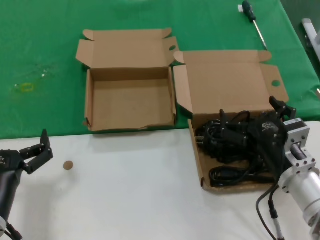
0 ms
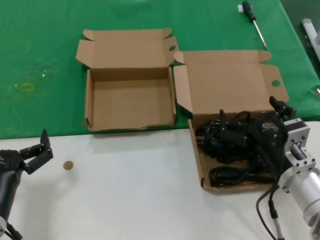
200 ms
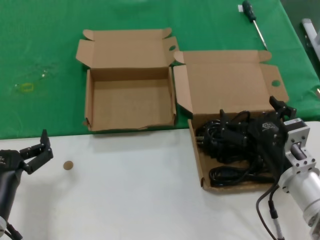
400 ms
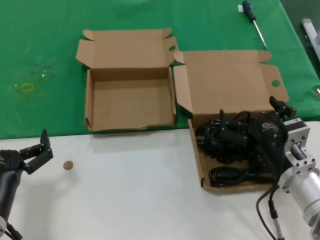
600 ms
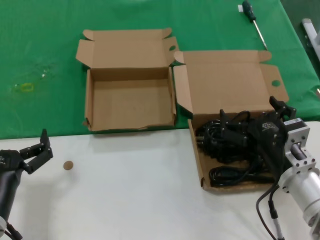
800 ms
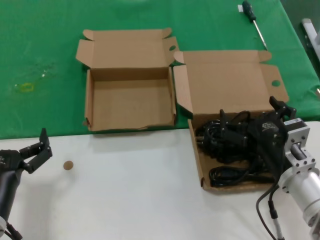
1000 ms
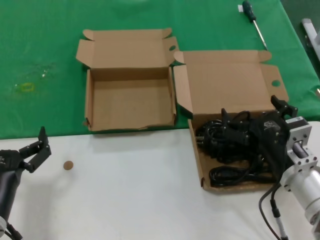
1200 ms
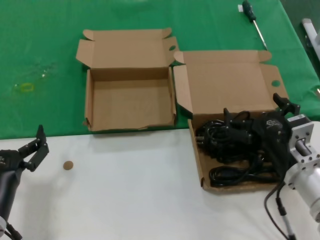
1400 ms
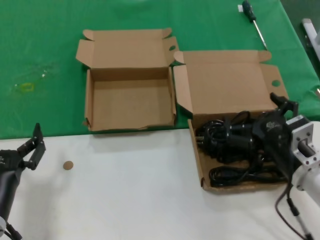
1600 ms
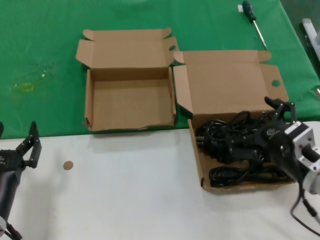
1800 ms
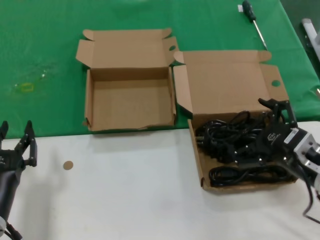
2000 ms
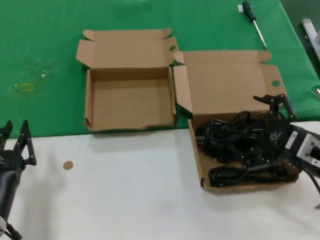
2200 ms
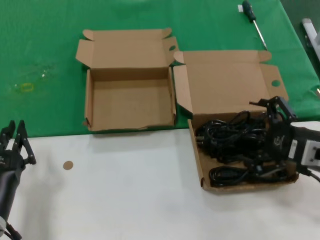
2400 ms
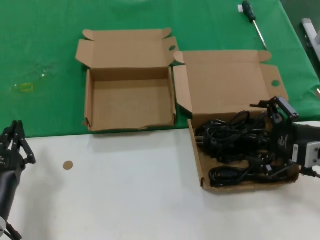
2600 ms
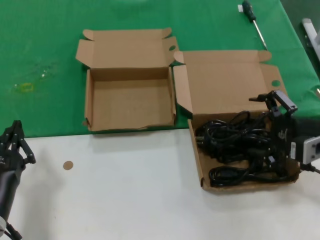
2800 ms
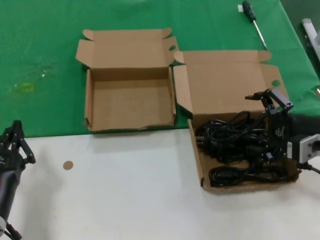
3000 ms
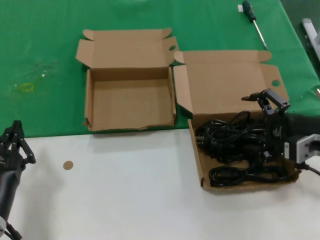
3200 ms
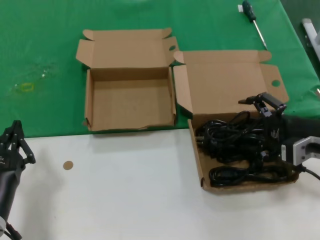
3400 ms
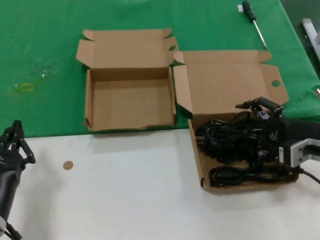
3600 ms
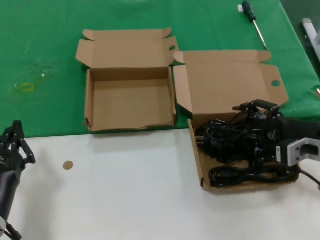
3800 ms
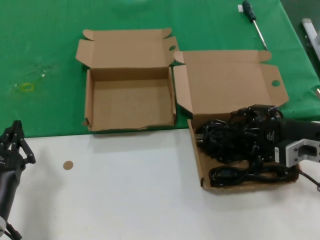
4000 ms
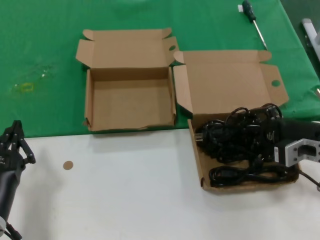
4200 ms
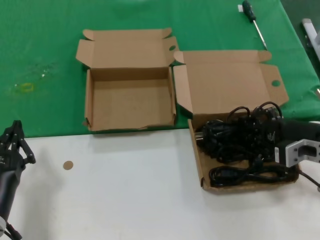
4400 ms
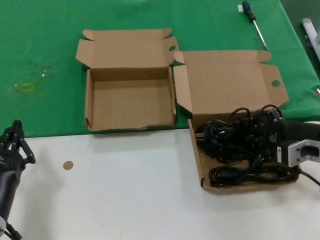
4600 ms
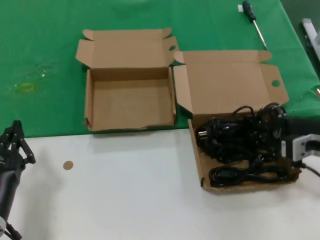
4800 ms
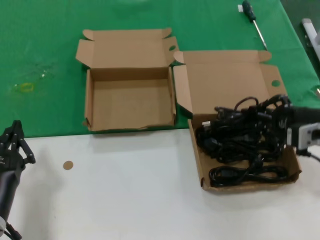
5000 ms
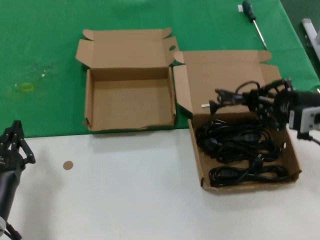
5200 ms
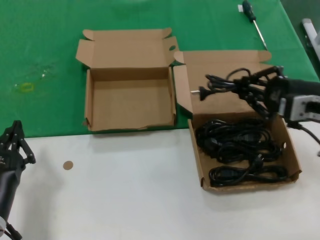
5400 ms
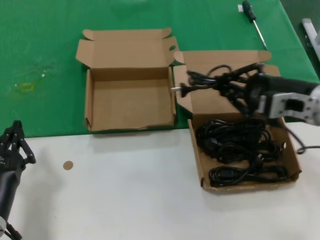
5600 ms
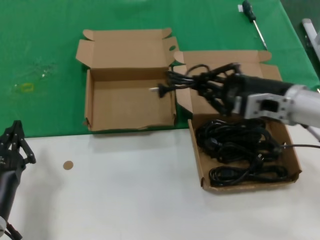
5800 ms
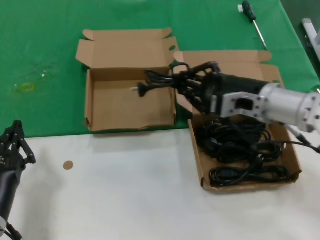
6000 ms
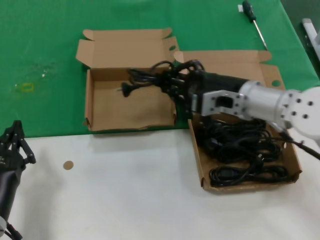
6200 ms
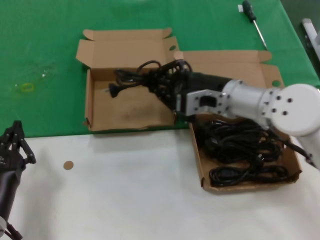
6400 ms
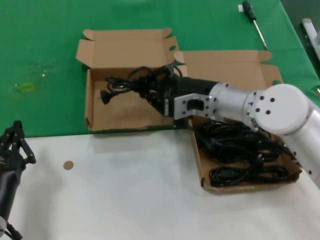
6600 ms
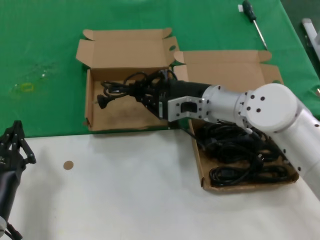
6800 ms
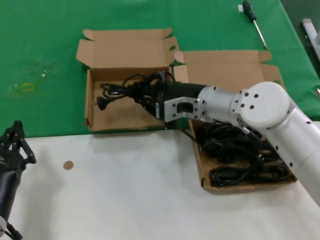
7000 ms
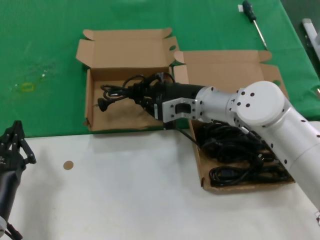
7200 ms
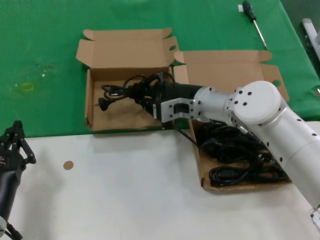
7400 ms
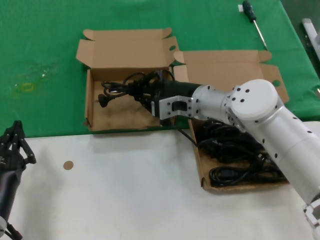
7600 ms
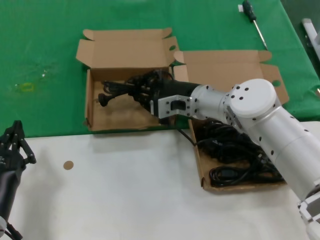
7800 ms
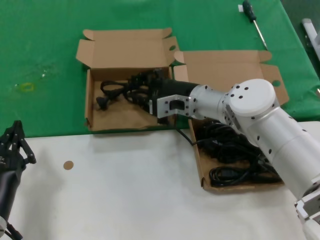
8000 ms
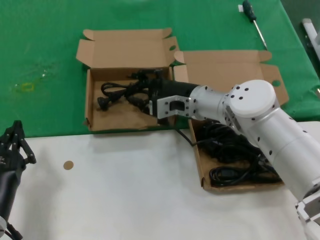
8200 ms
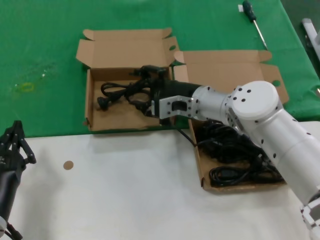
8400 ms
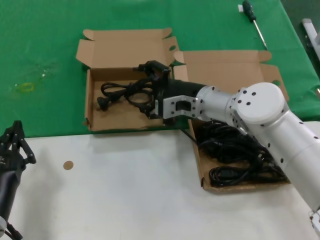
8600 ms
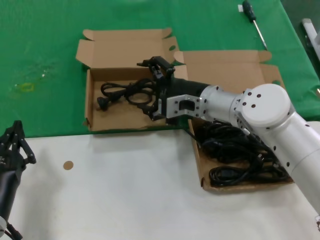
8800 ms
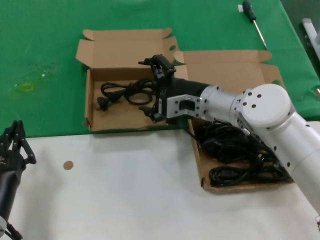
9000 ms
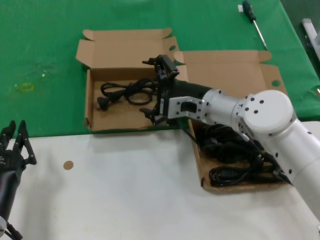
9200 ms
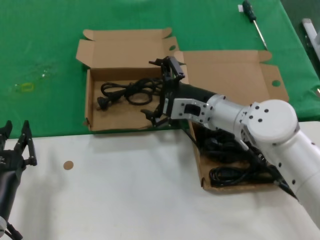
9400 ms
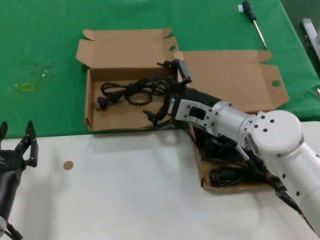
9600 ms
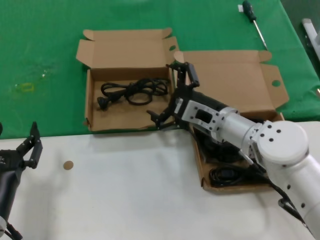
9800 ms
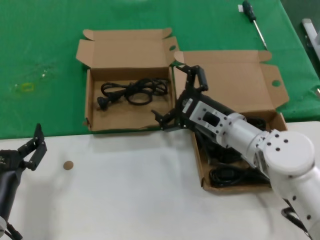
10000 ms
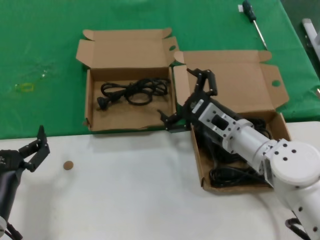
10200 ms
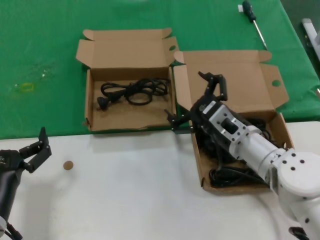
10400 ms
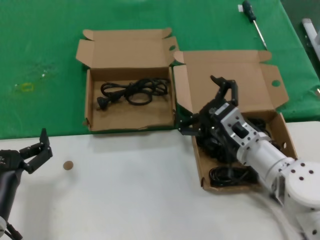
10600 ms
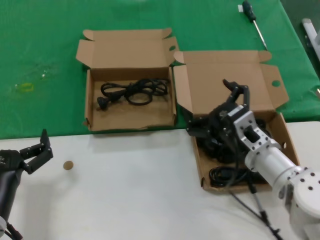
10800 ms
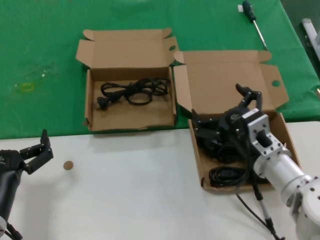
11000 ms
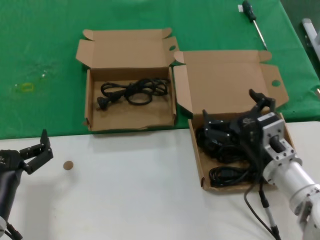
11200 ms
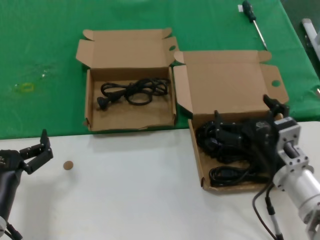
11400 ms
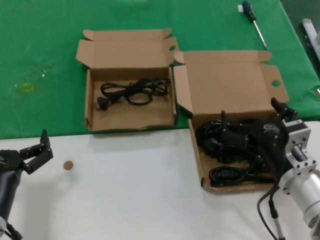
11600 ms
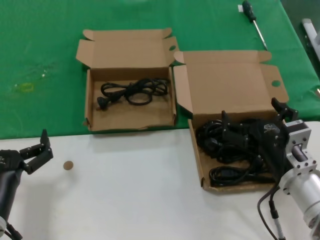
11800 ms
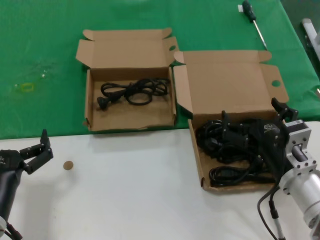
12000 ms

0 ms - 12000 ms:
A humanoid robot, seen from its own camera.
Task of the whole recording: take the parts from the box containing them and put them into an empty box.
Step, 0 ms - 4400 ms: Grasp the data cable.
Step, 4600 ms - 8600 ms: Place the data cable in the another box.
0 ms - 1600 ms: There are only small adjustments of the hands.
1600 ms - 3000 ms: The right hand goes roughly 10 cm to the right and upward.
3000 ms - 4400 ms: The hands move only a little.
4400 ms - 6000 ms: The right hand heads to the left, upward and forward, covering some 15 cm.
6000 ms - 7600 ms: The right hand is displaced to the left and forward by approximately 15 cm.
7600 ms - 9000 ms: There are only small adjustments of the hands.
9000 ms - 10400 ms: The right hand travels backward and downward by approximately 10 cm.
10400 ms - 12000 ms: The right hand heads backward and to the right, covering about 10 cm.

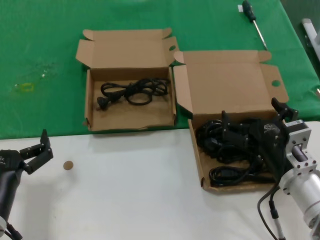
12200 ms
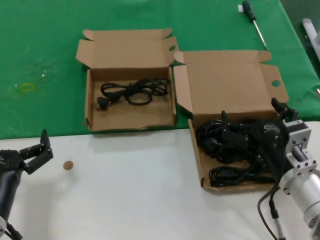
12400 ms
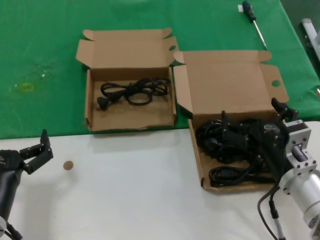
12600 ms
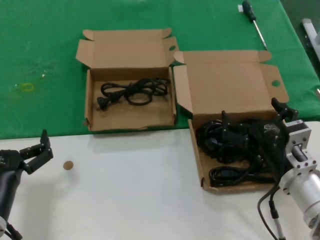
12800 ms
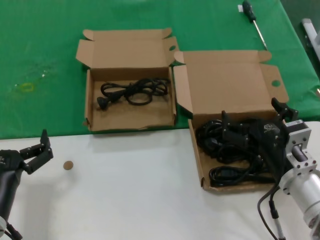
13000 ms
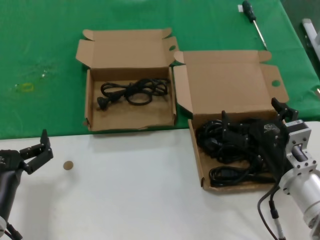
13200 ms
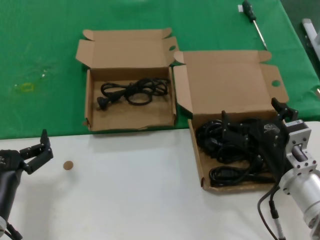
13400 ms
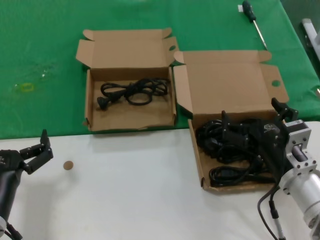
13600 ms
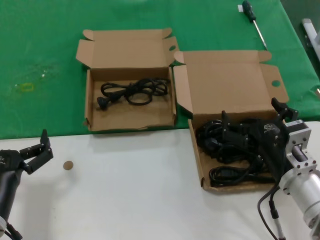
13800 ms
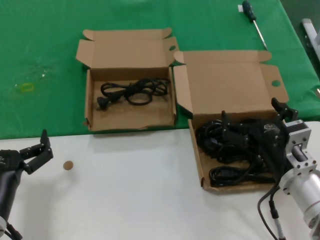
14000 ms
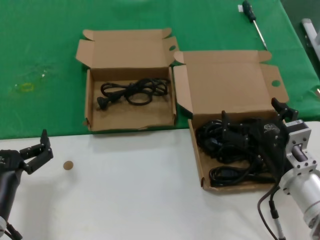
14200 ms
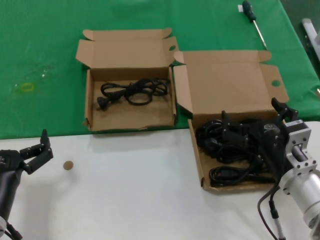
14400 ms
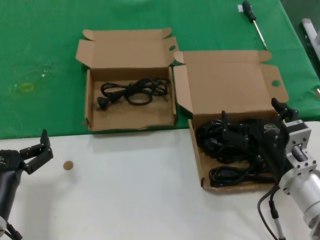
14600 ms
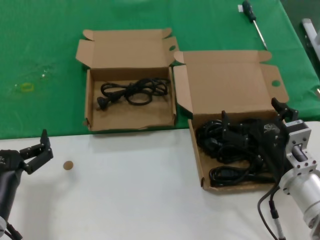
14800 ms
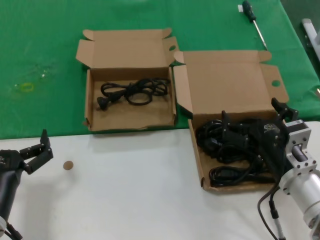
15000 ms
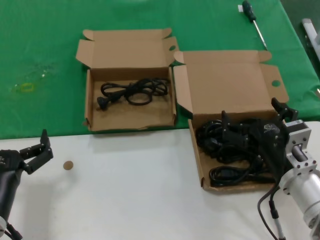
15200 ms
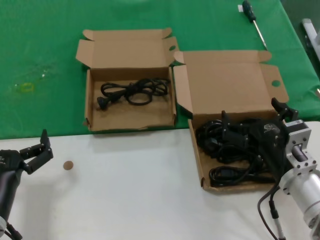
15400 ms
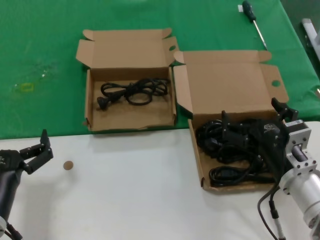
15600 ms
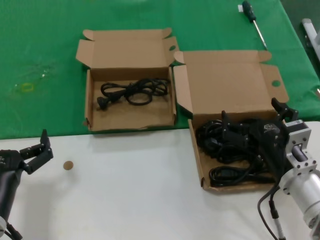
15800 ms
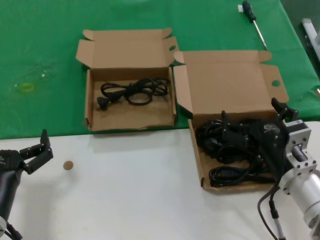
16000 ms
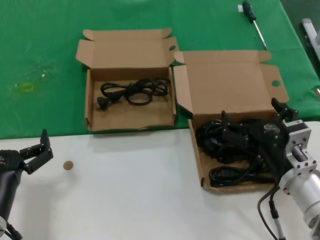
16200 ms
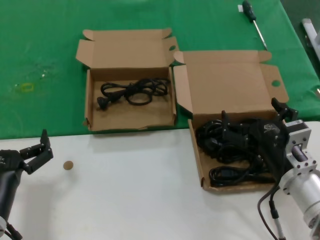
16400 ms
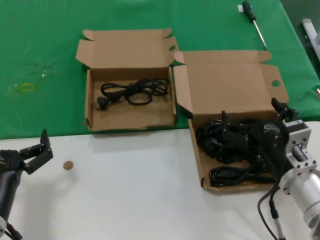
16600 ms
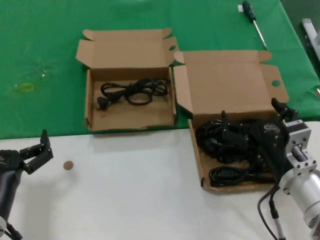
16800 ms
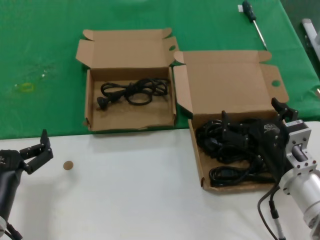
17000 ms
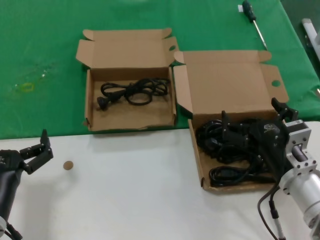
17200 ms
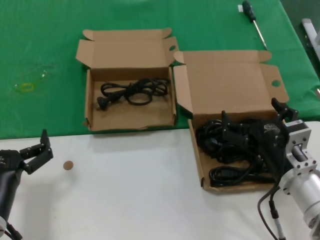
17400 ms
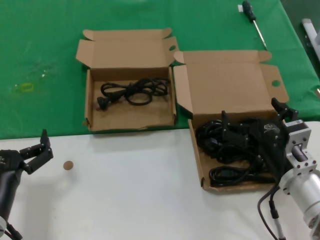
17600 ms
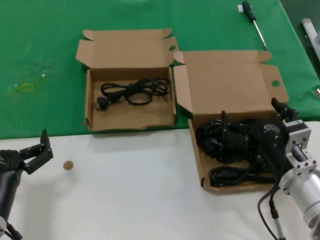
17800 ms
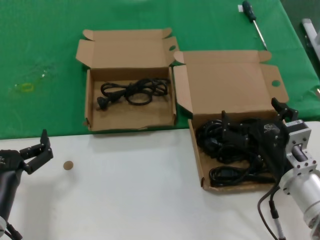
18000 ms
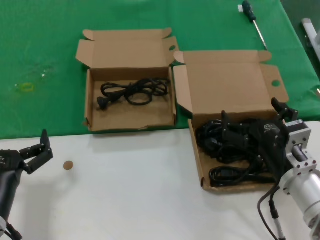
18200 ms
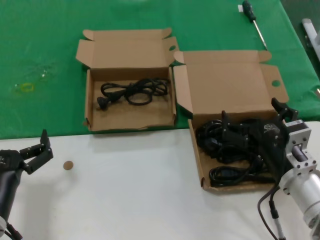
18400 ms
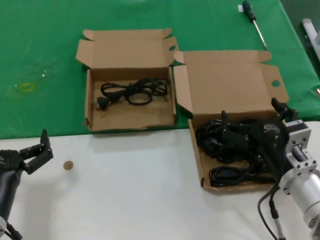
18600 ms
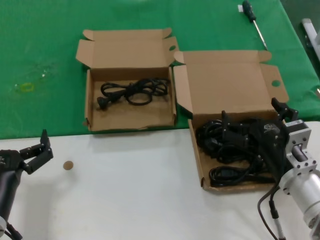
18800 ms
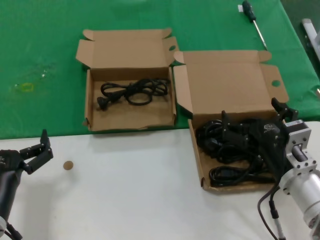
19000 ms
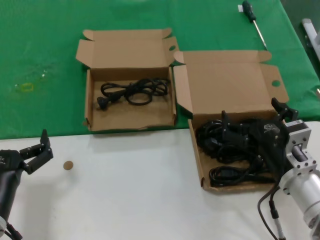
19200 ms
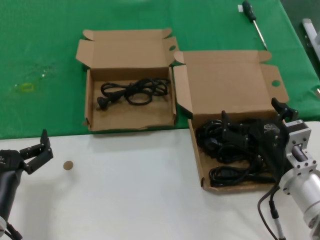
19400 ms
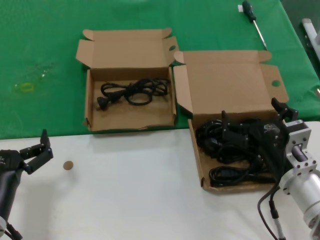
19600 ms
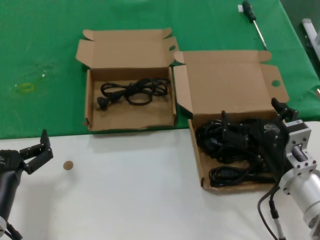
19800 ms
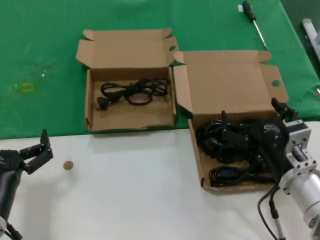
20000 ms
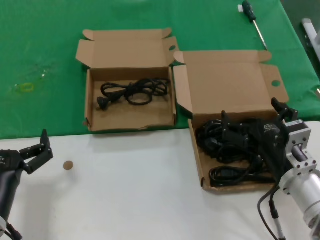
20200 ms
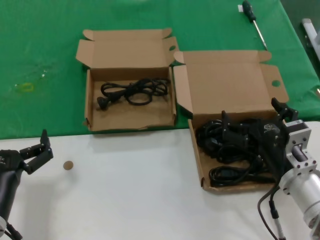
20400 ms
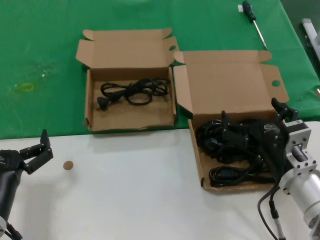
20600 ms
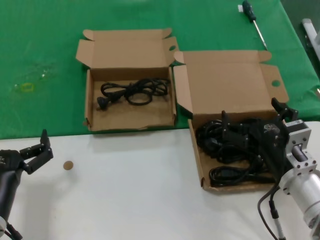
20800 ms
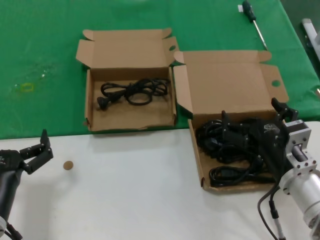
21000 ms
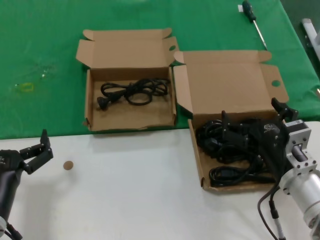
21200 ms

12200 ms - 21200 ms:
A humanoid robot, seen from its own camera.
Task of the whole recording: take the parts from the box containing them and put them into an empty box.
12200 ms - 21200 ms: Both hands stay about where they are.

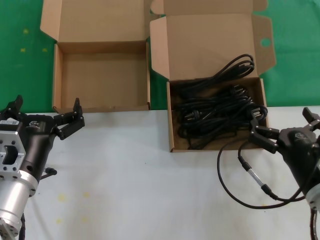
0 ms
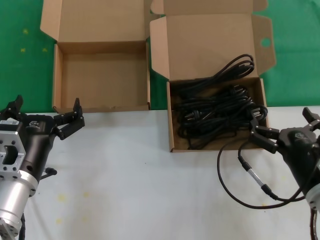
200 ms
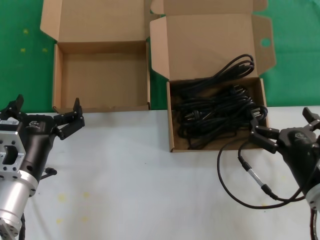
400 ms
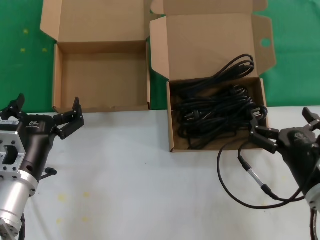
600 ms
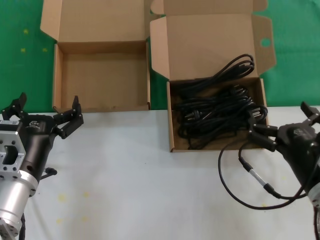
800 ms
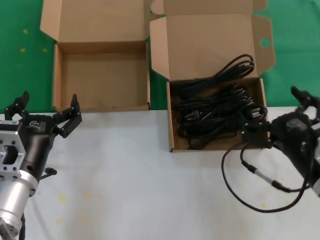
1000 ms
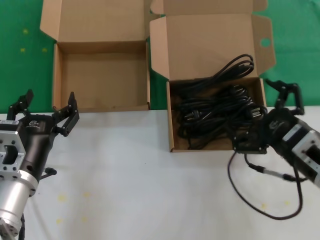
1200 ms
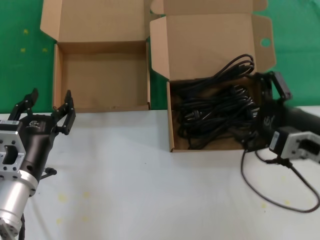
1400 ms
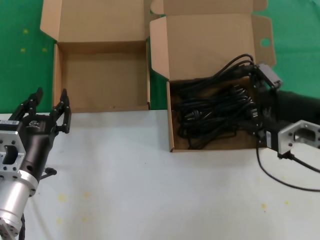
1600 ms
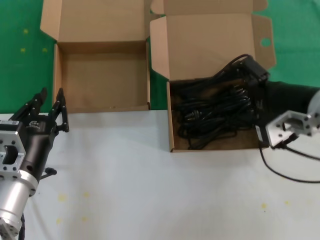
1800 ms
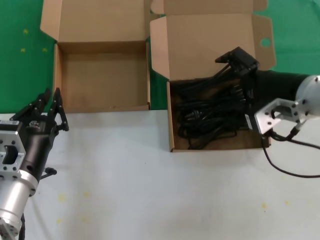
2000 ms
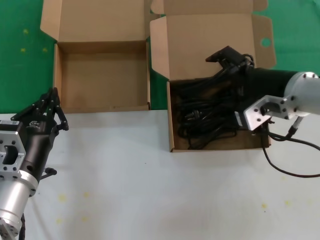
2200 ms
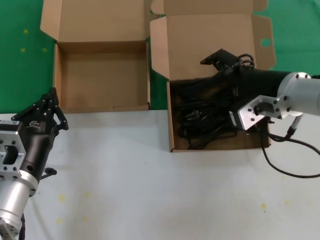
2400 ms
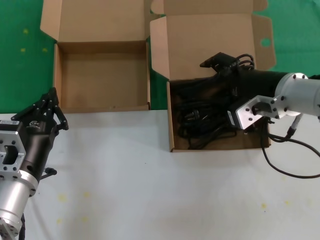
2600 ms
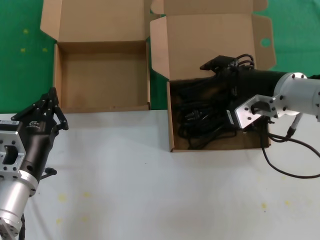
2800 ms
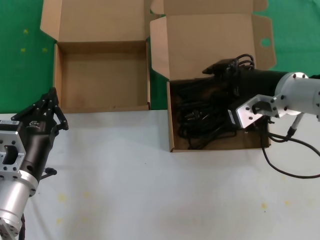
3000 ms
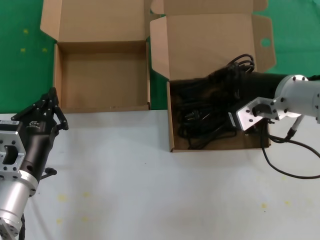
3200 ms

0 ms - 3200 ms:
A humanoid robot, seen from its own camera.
Task of the whole recording: take the parts from the box containing them and put them into an empty box.
0 ms - 1600 ms: The right hand moves upward and forward, approximately 15 cm.
1600 ms - 3200 ms: The right hand travels forward and to the left by roughly 10 cm.
